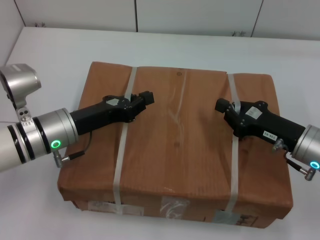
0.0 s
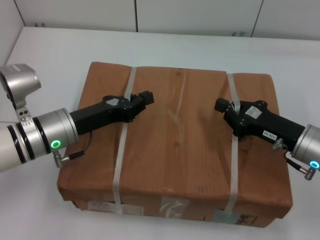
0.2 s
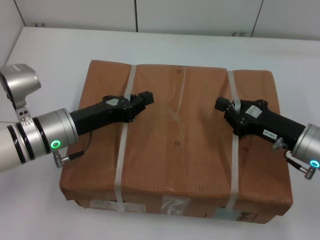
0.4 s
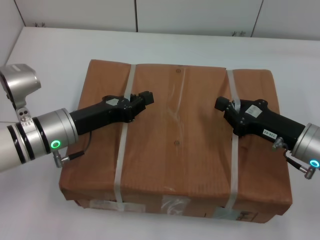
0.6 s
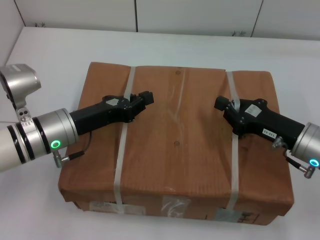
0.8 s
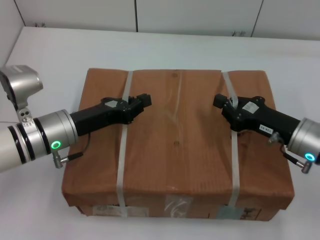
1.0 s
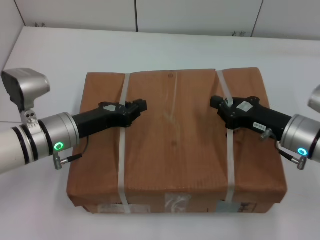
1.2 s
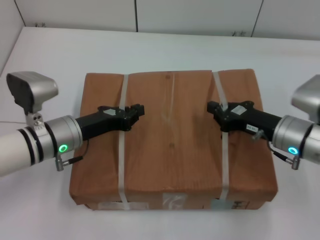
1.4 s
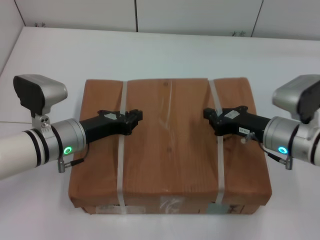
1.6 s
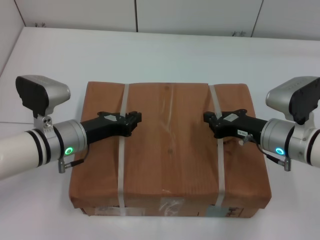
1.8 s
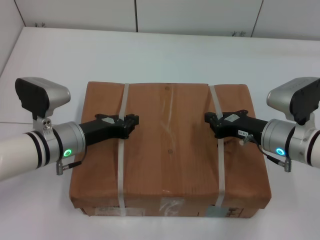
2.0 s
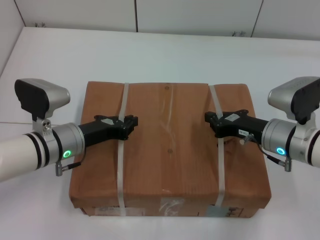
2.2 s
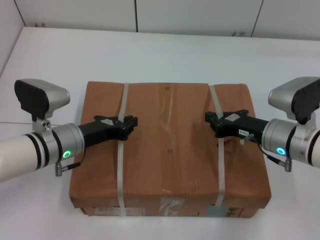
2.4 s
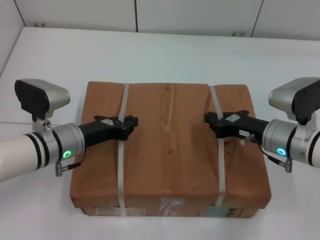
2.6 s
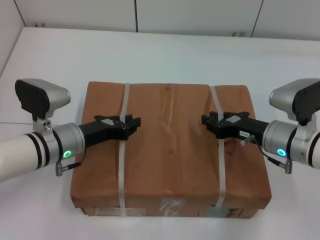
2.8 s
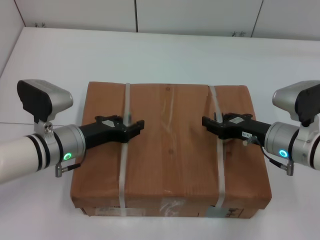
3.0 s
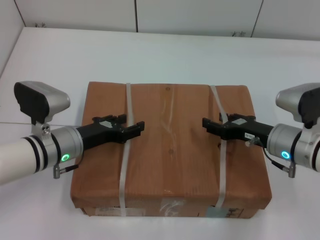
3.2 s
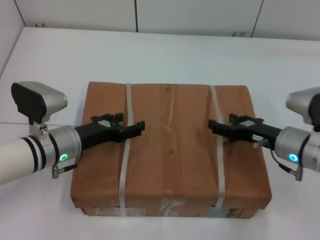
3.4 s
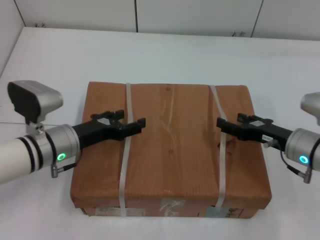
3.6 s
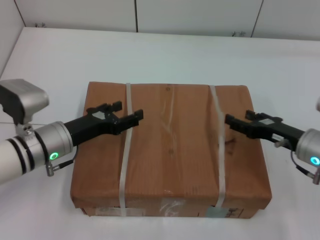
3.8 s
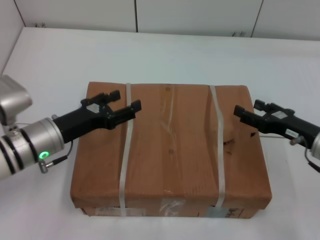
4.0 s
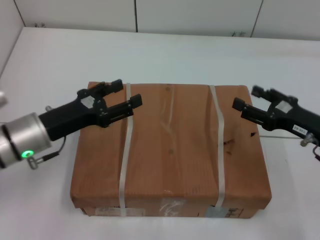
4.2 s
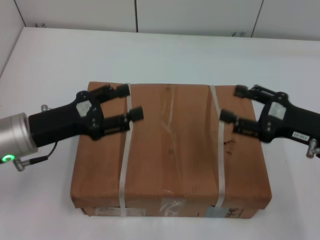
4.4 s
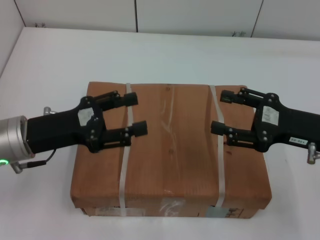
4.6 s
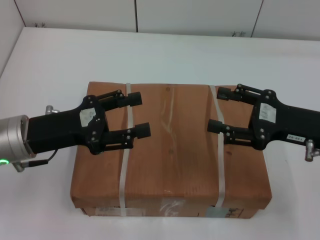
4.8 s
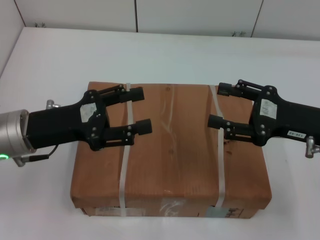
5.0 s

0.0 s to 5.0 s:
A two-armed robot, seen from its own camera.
Task of the whole recording: place the box on the table with both arms.
Step, 0.0 to 1.8 s: Place the box on the table with left gripper.
Step, 0.0 to 1.8 s: Place the box on the table with right gripper.
Step, 2.0 to 3.4 s: Loosen the box on the table with left gripper.
Step, 2.0 to 3.4 s: Loosen the box on the table with right gripper.
0.0 to 1.6 s: The right gripper moves about 5 cm.
1.6 to 3.4 s: The right gripper opens its fingers, while the left gripper opens its fingers.
3.4 to 5.0 s: Both grippers travel together upward, some 10 cm.
